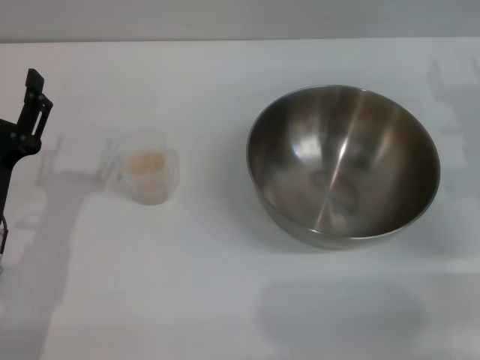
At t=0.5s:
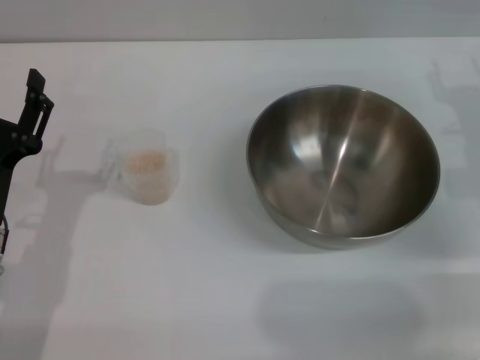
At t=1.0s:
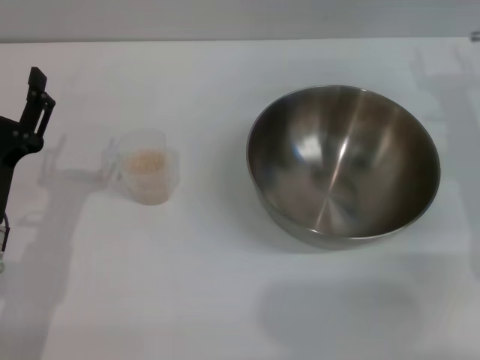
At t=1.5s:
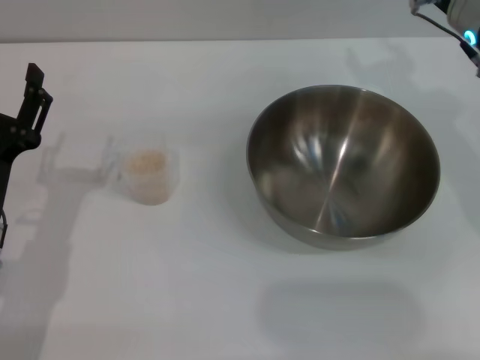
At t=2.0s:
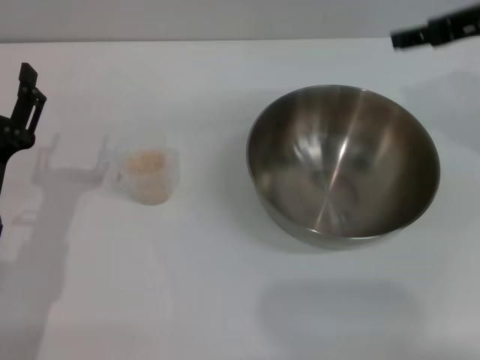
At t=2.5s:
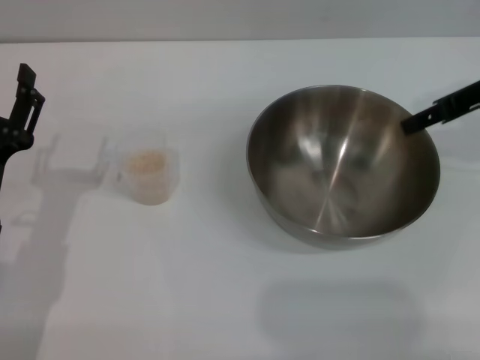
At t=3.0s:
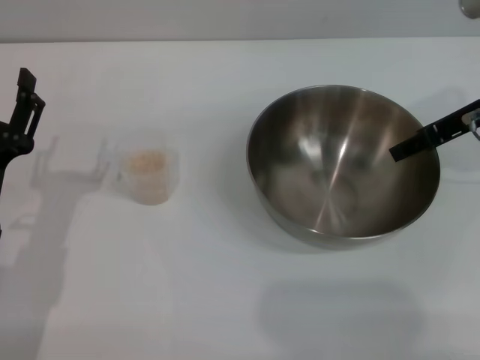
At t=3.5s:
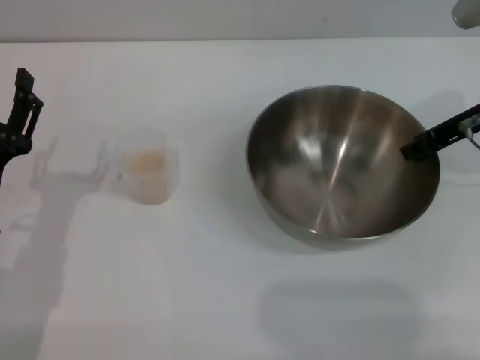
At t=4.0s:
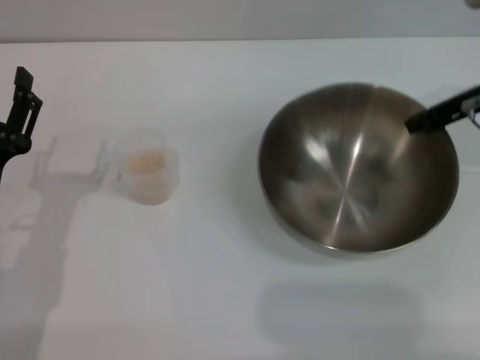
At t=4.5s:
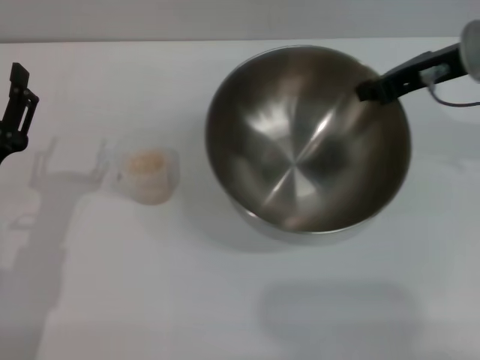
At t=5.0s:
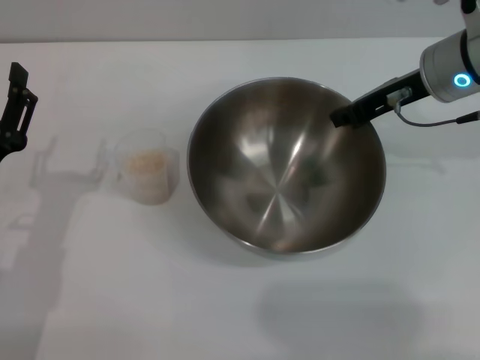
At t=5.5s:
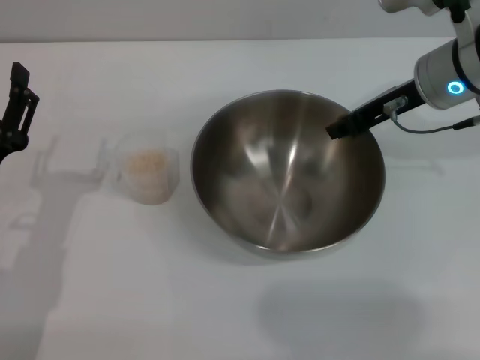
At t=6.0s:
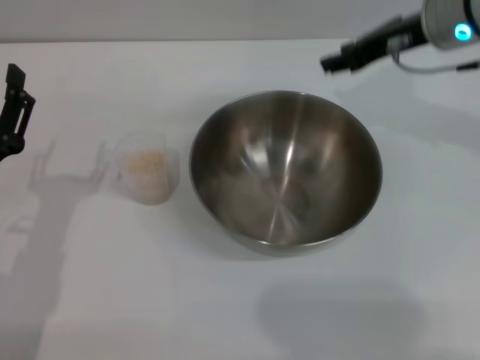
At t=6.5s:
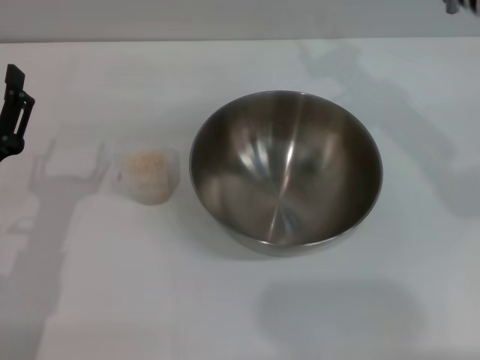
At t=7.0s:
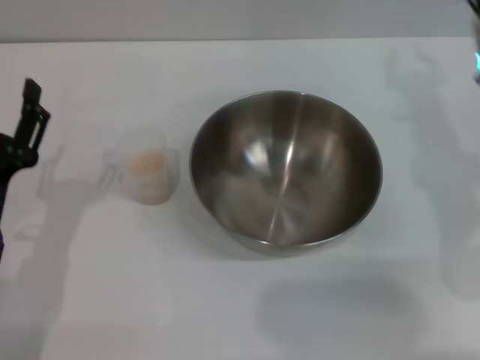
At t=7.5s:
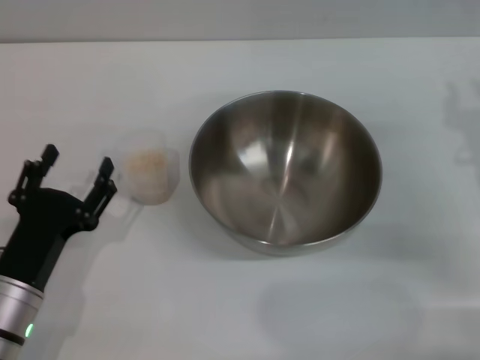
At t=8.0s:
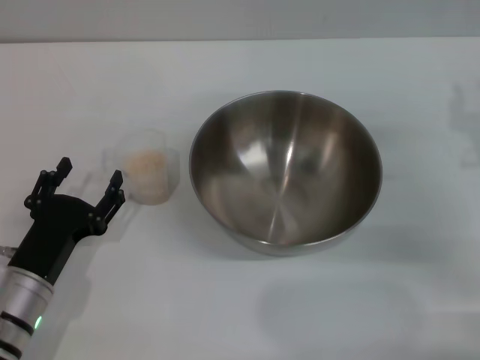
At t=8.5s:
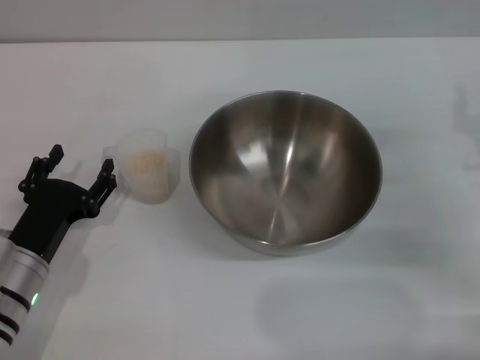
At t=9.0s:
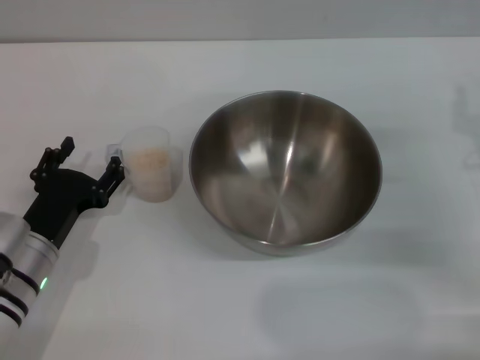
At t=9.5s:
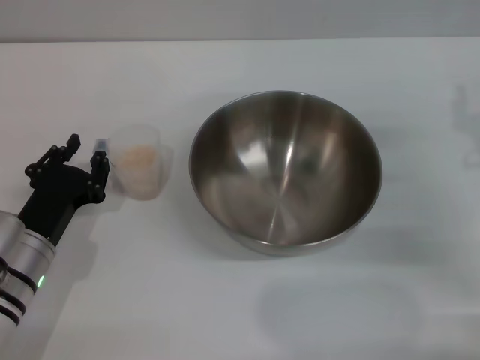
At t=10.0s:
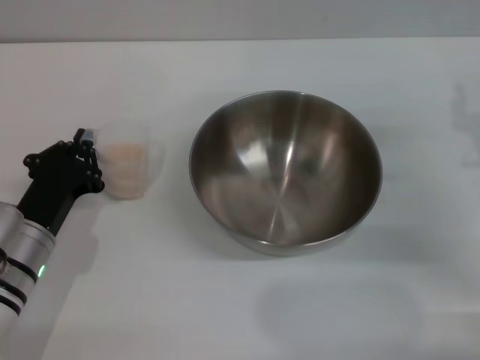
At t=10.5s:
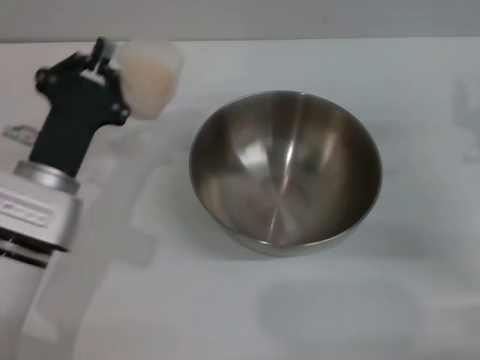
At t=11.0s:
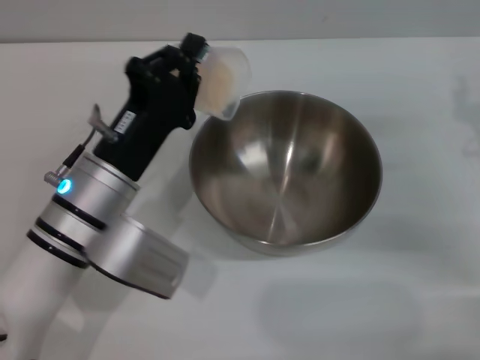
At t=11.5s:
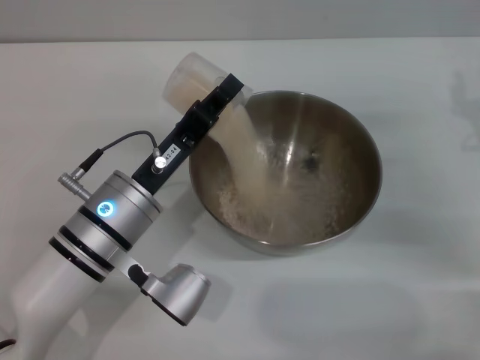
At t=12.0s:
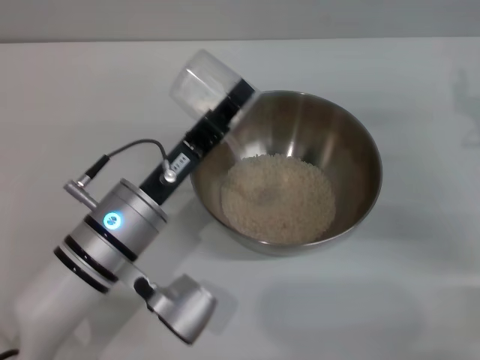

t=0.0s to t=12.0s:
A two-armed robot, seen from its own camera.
Task of the whole recording: Place the bowl in the middle of the table with one hand and pour the rice from the grain cup into it with the other hand.
Step, t=0.0s to t=4.0s: Pick up the bowl with the right gripper.
Step, t=4.5s to t=5.5s: Place the bowl in the center of view with the right gripper.
Step, t=6.0s to t=10.0s: Pick up the cup with rice in it with the left gripper.
t=0.0s to t=2.0s: The right gripper is displaced upward by about 15 cm.
t=2.0s to t=4.0s: The right gripper shifts some 5 cm downward, and closes up.
t=4.0s to t=6.0s: The right gripper is displaced to the left by approximately 5 cm, and opens its fingers.
t=6.0s to t=8.0s: The left gripper heads downward, covering approximately 5 cm, while the right gripper is displaced backward, downward and to the right by about 20 cm.
t=8.0s to t=10.0s: The left gripper closes its fingers.
t=10.0s to t=12.0s: The left gripper moves to the right and upward, about 10 cm.

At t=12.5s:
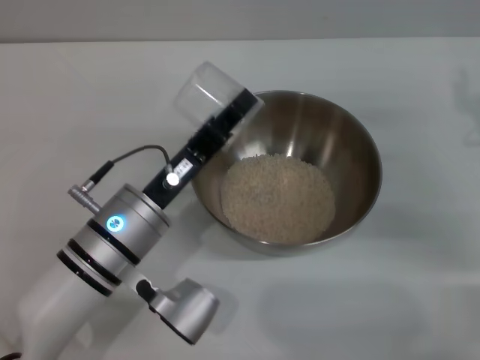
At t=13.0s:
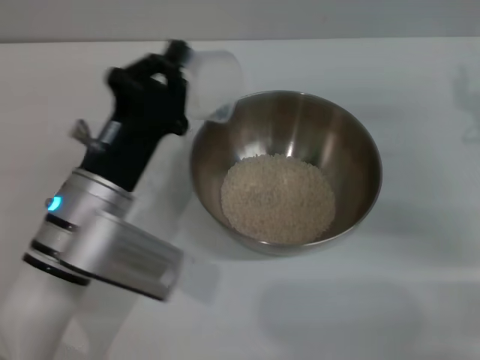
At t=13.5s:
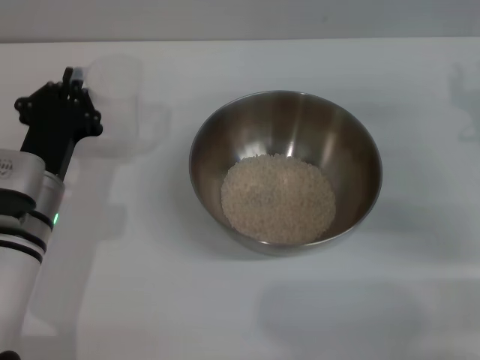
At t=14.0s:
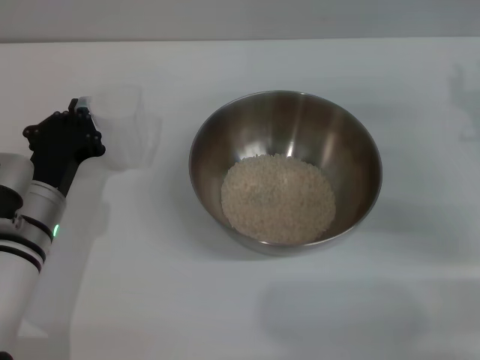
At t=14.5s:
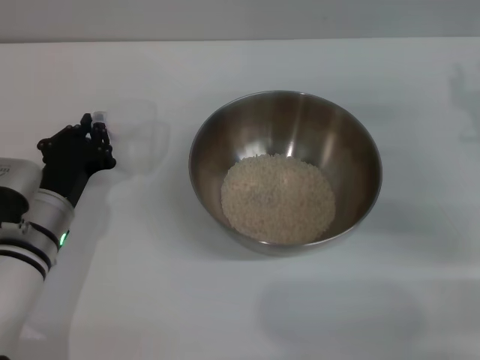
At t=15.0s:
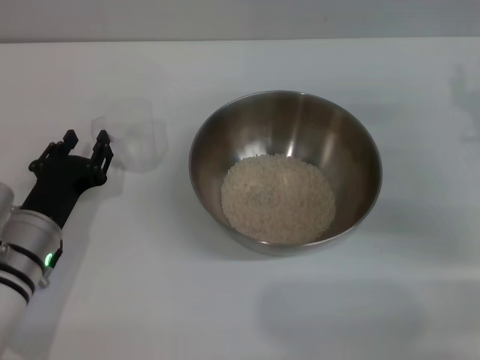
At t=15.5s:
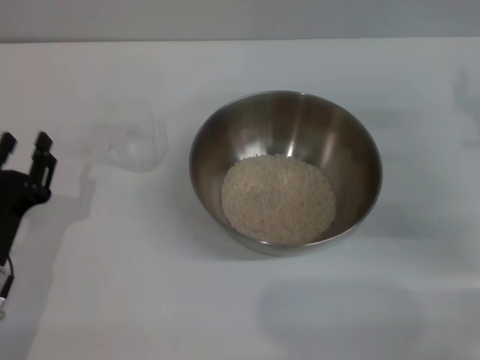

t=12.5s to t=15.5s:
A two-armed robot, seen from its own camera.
Task of the whole recording: Place the bowl in the middle of the table with one hand and pour the rice from the grain cup into it with the other hand.
Step, t=13.0s to t=15.0s: Place the cup on the table with the left gripper.
t=12.5s to t=14.0s: The left gripper heads to the left, covering about 10 cm.
t=14.0s to t=15.5s: The left gripper shifts some 10 cm backward, and opens up.
